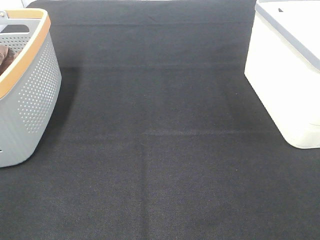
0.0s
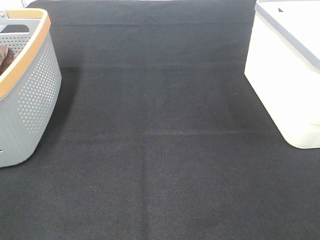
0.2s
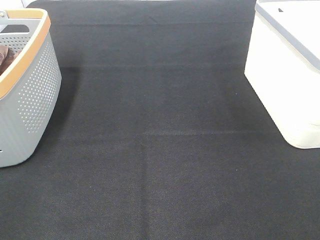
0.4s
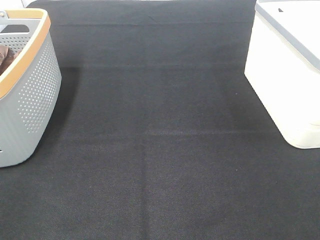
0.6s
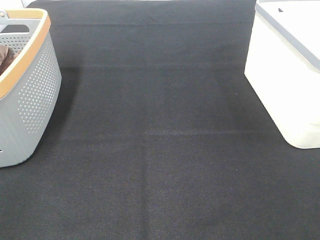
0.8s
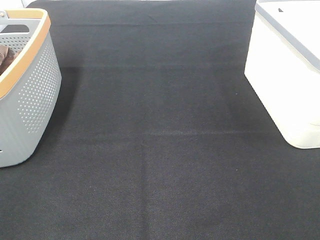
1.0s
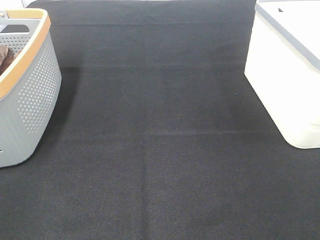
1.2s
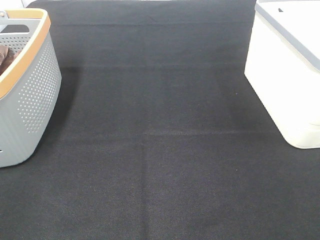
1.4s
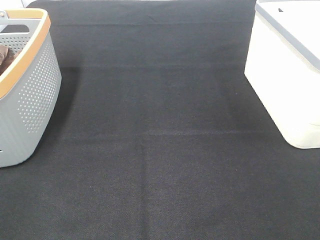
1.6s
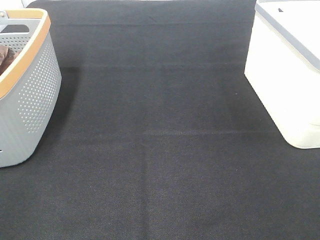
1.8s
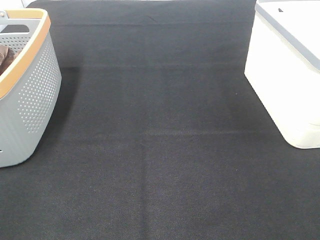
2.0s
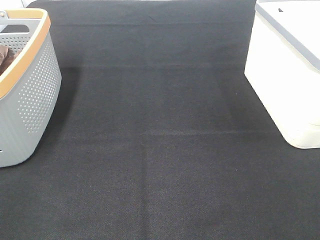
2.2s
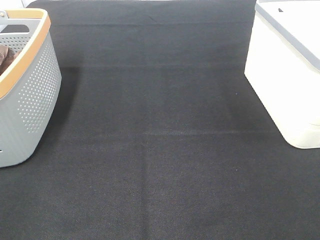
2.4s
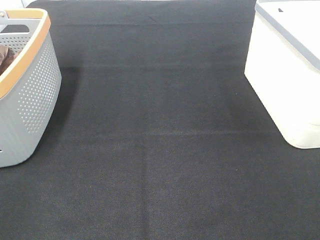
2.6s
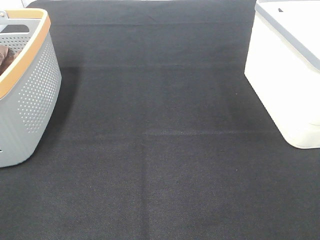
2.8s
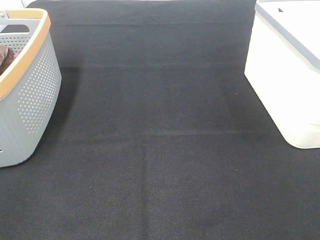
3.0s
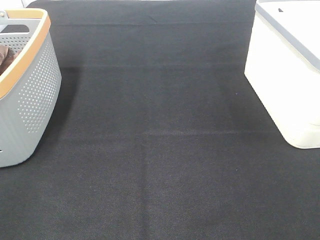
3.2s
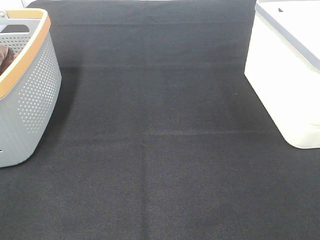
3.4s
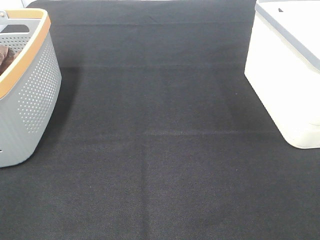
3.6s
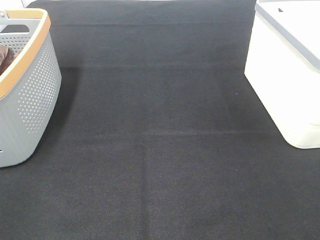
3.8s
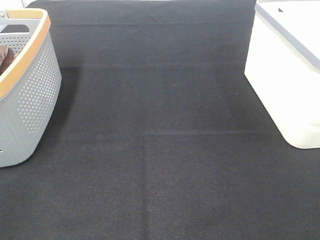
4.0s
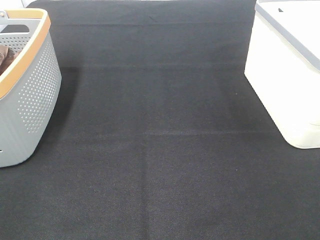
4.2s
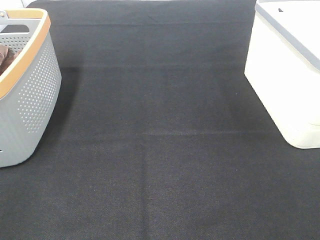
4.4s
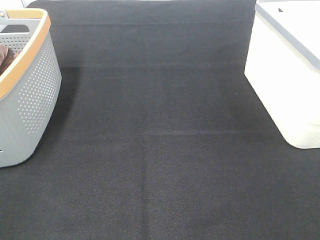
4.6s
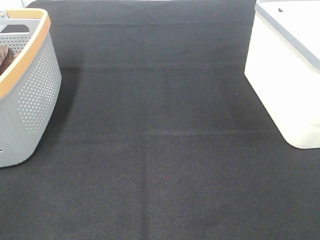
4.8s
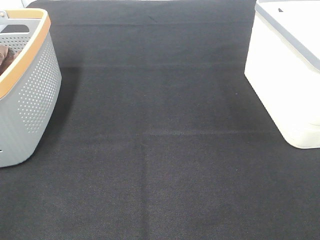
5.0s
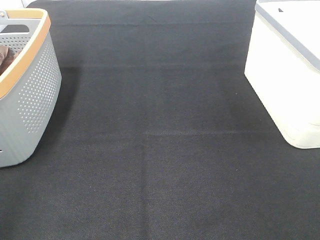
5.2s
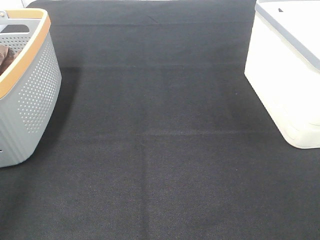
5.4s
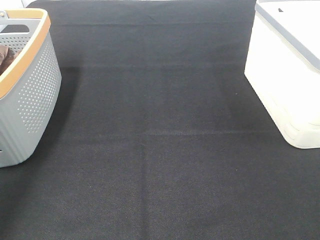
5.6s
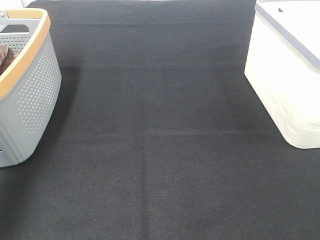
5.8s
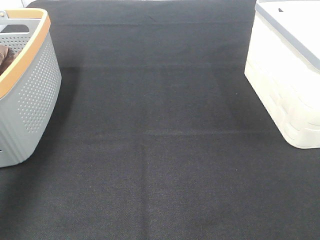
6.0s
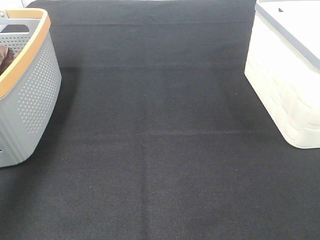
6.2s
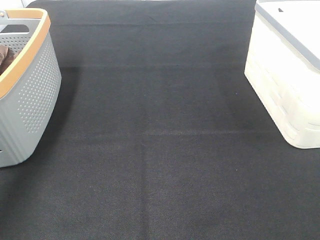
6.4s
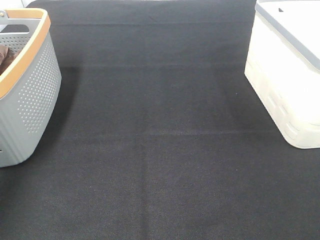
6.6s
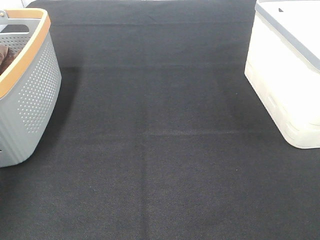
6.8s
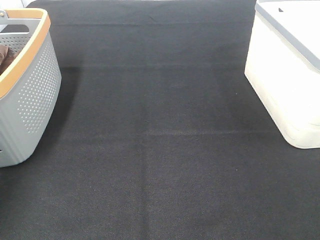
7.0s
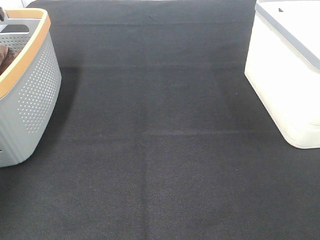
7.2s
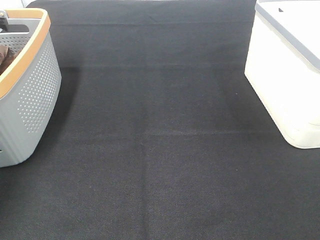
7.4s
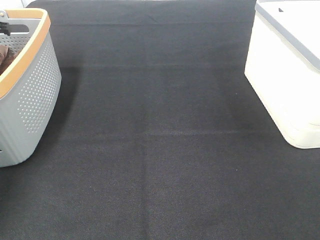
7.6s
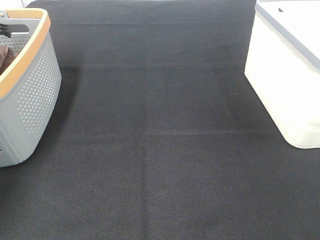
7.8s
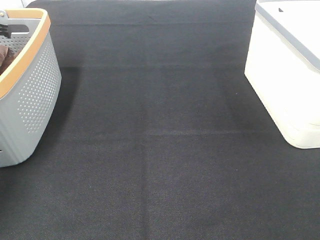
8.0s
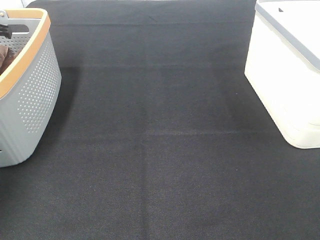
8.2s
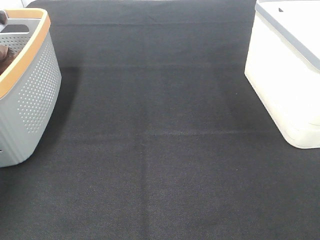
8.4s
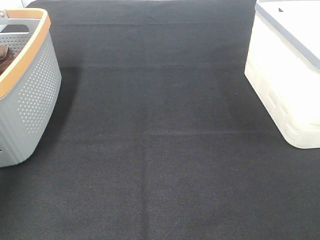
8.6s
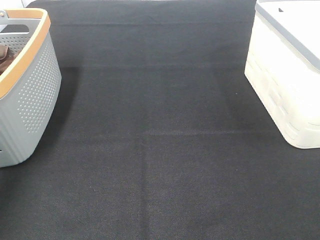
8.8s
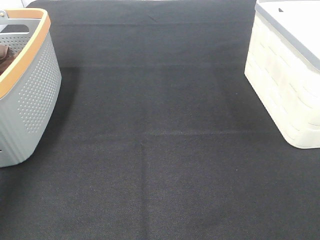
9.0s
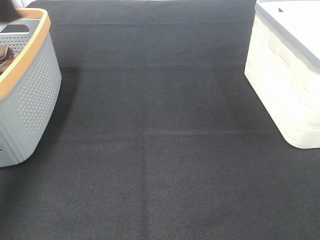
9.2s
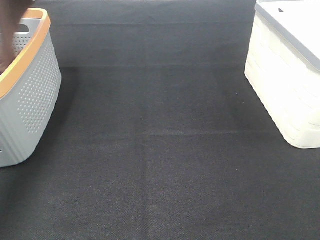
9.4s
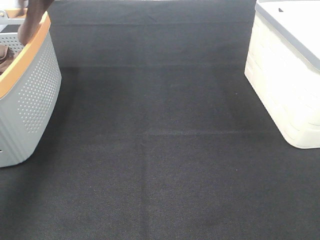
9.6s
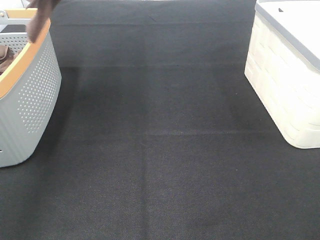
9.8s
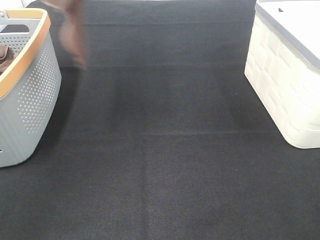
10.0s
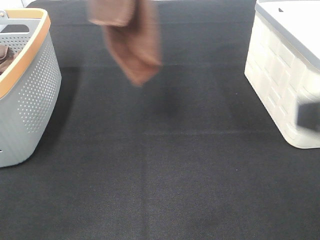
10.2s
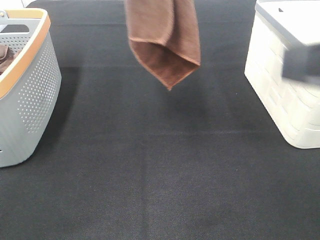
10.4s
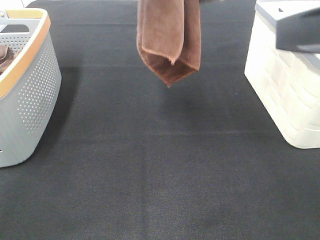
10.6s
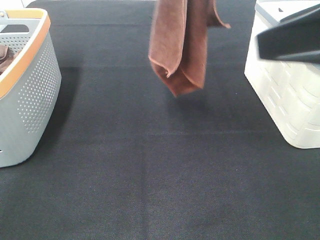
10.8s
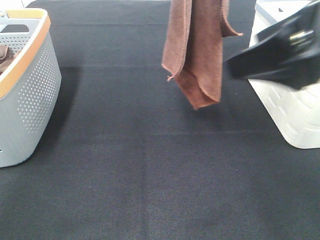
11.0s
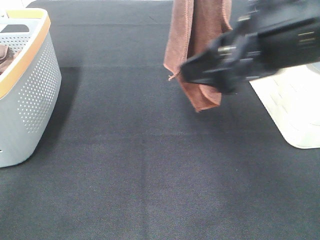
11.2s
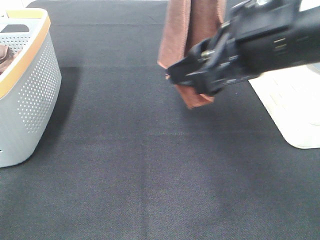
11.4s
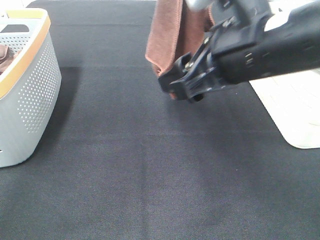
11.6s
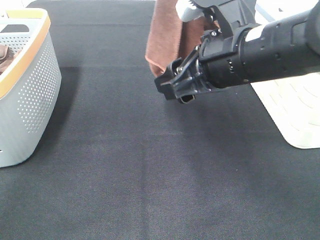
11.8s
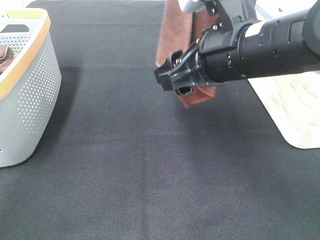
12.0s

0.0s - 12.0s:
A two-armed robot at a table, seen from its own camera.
Task of the whole recording: Remove the towel and place it.
Step, 8.4s - 11.2s: Right hand: grab a corner of the brown towel and straighten it.
0.0s - 4.4s: Neither gripper changes place.
4.4s - 6.0s: The left gripper travels forward by approximately 35 cm.
6.0s - 7.6s: The left gripper goes roughly 20 cm forward and downward.
9.0s - 10.4s: The left gripper heads to the right, covering approximately 25 cm; the right gripper heads forward, to the left and upward, covering some 15 cm.
10.4s - 12.0s: The left gripper is displaced to the right by some 5 cm. Meanwhile the right gripper moves forward, to the left and downward, some 20 cm.

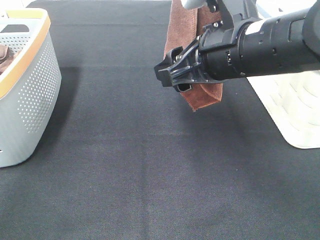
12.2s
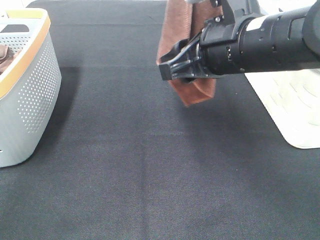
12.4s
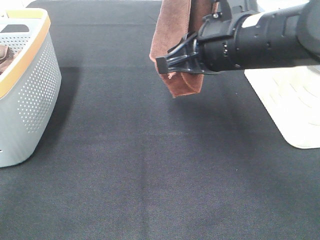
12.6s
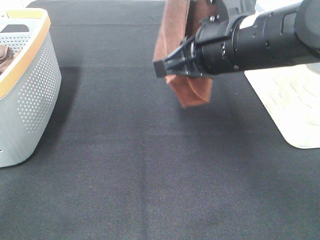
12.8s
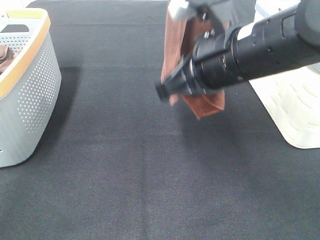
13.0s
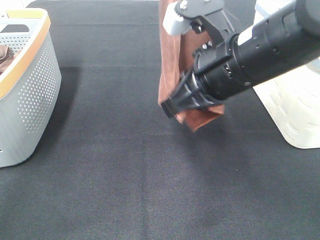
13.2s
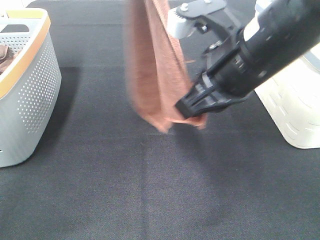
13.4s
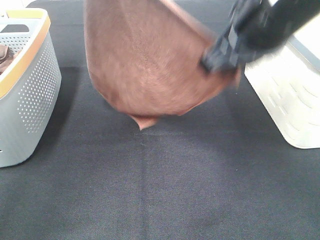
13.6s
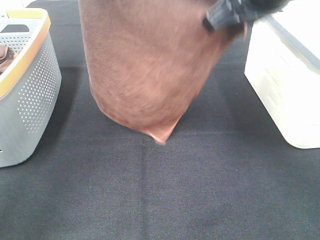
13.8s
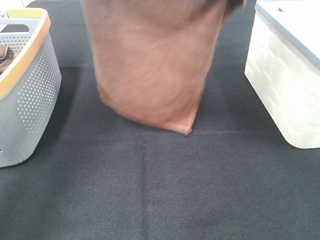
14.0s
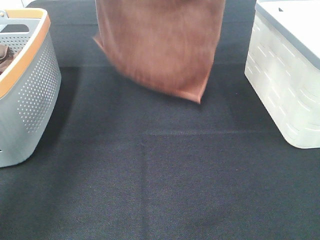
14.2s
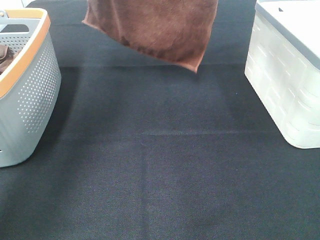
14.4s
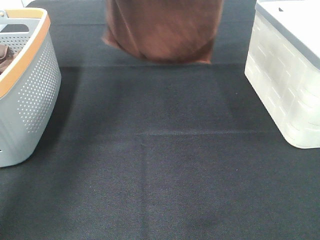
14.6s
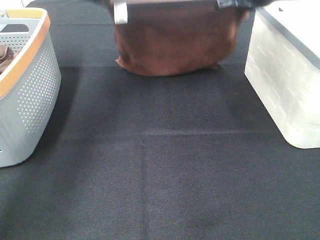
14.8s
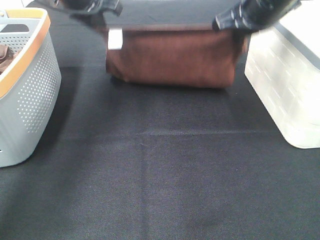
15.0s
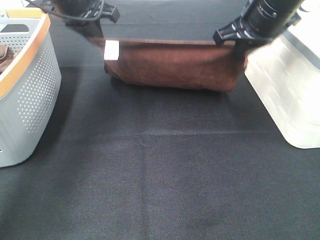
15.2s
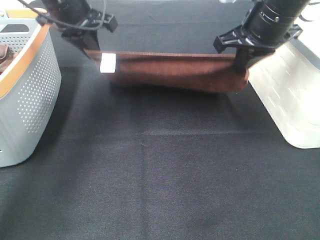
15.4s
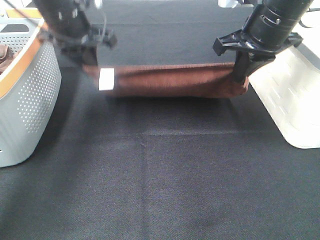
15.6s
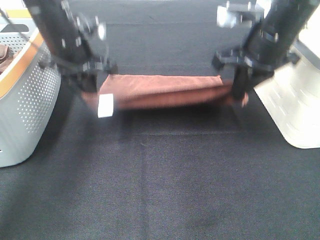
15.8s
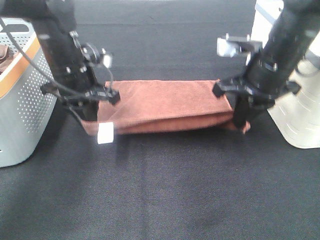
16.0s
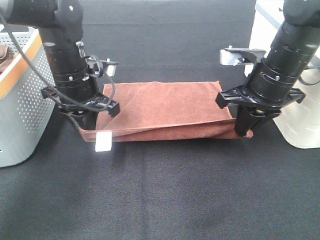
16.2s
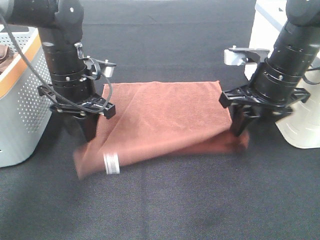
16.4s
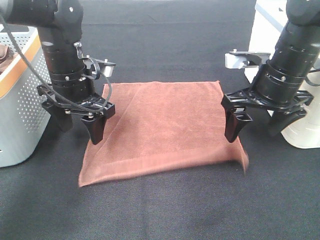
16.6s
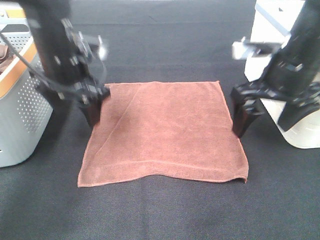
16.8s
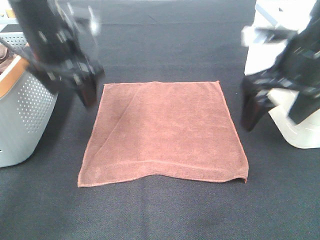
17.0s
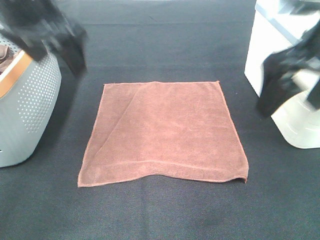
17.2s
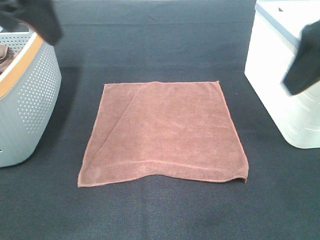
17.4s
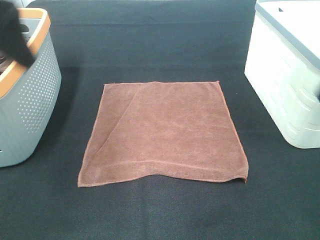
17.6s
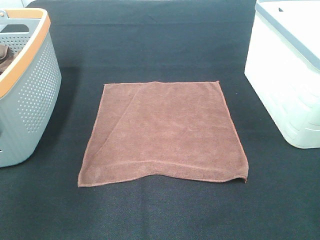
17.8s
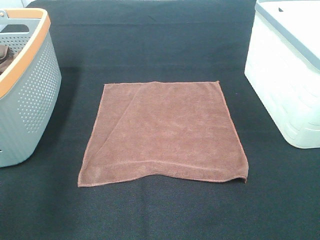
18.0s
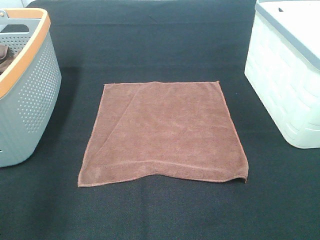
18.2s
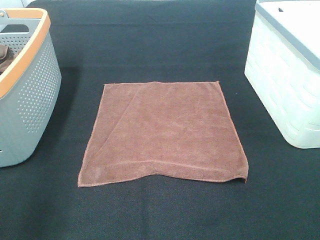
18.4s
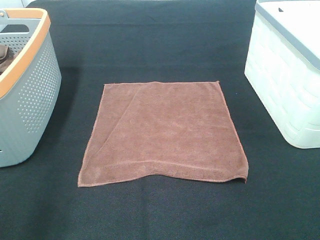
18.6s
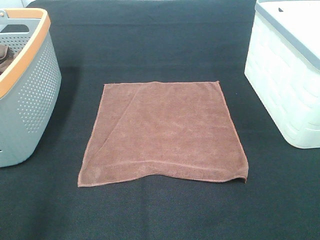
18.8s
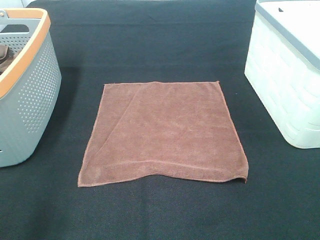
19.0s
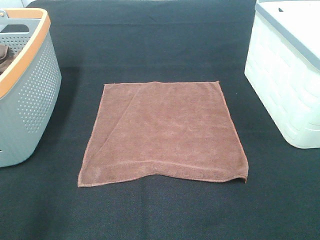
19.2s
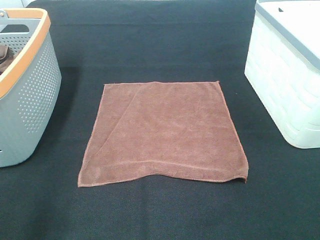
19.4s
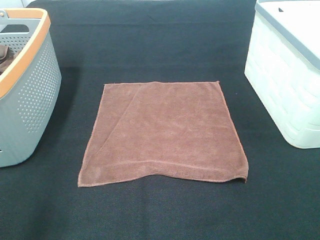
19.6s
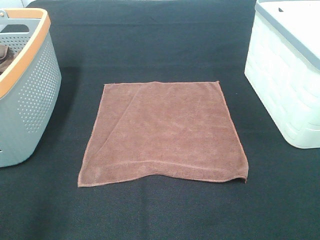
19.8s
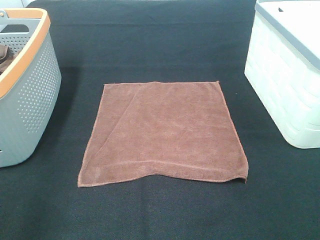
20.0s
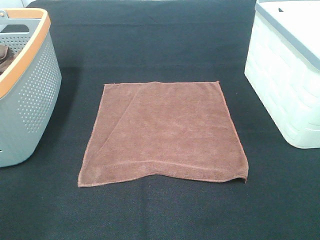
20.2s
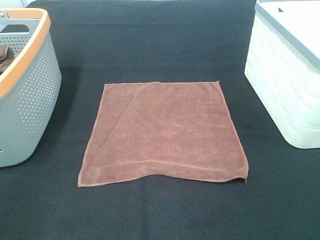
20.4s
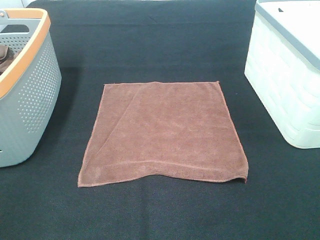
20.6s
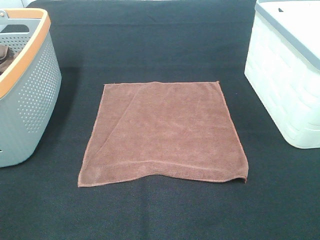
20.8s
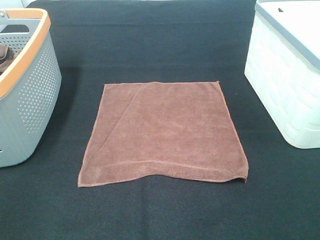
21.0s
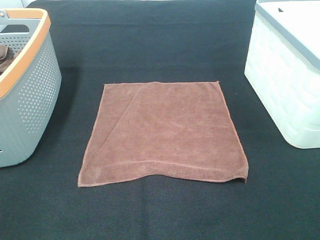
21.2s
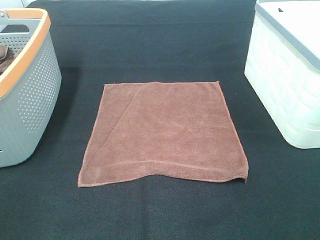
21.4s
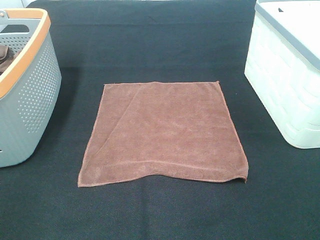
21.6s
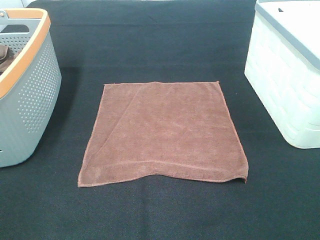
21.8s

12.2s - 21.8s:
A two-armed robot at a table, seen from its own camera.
Task of the whole recording: Remove the towel and place it.
Step, 12.2s - 13.2s: Left hand: spread the brown towel flat on the table.
Step, 12.2s - 13.2s: Right hand: spread the brown towel flat on the table.
12.2s - 13.8s: The left gripper travels to the left, forward and downward by some 15 cm. Meanwhile the right gripper travels upward by about 10 cm, and closes its fingers.
13.8s - 15.4s: The left gripper is displaced downward by roughly 15 cm. Meanwhile the right gripper travels forward and downward by about 10 cm.
15.4s - 17.0s: Both grippers move backward, approximately 10 cm. The left gripper travels downward and back again, approximately 10 cm each way, and opens up. The right gripper opens its fingers.
17.0s - 18.6s: The left gripper heads backward and to the left, covering some 25 cm. Meanwhile the right gripper moves backward, approximately 25 cm.
